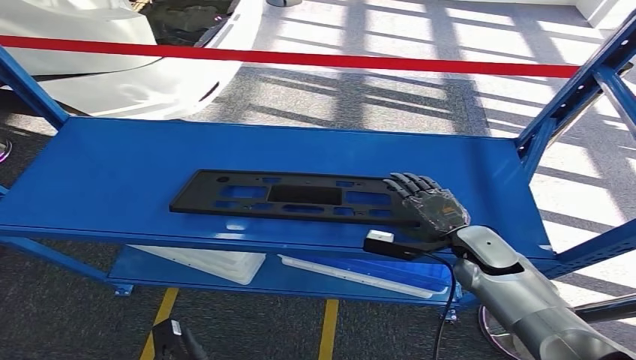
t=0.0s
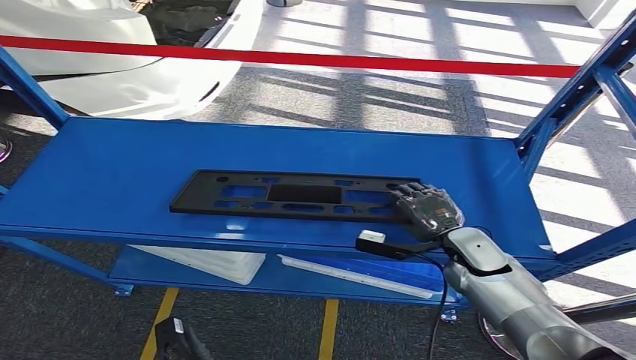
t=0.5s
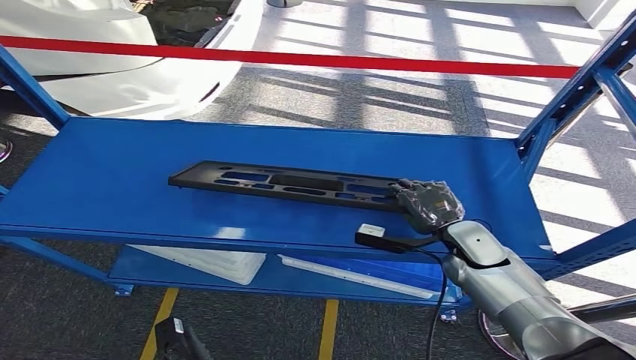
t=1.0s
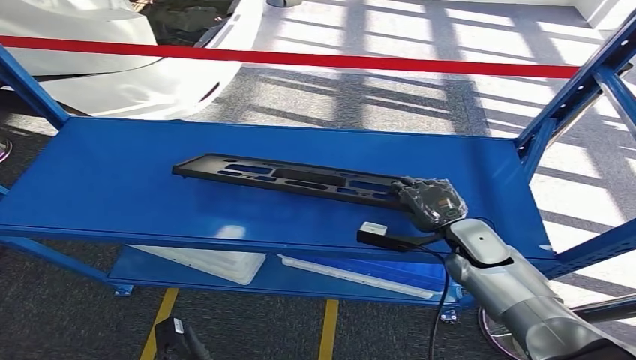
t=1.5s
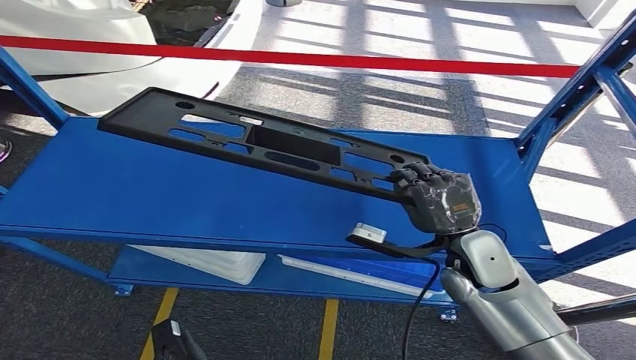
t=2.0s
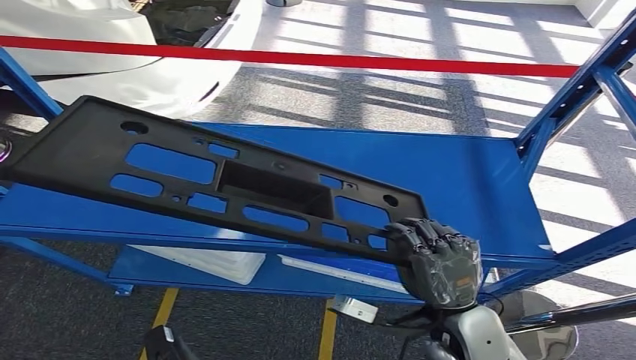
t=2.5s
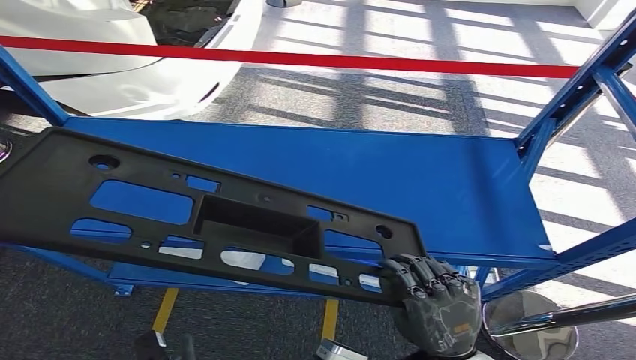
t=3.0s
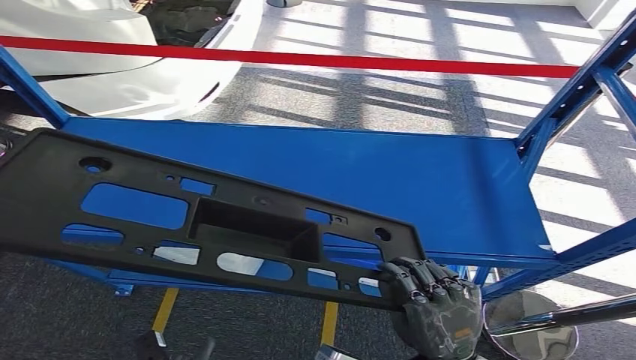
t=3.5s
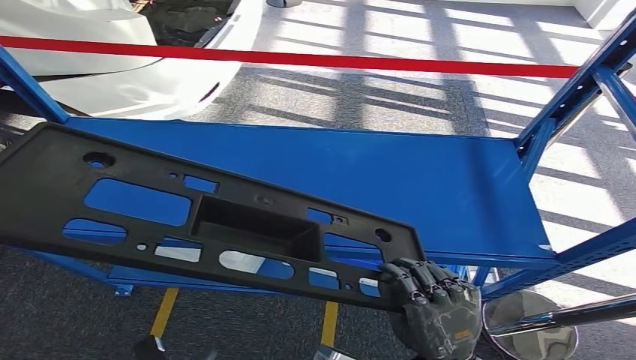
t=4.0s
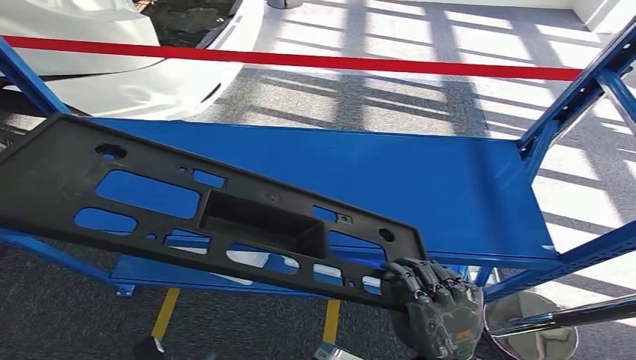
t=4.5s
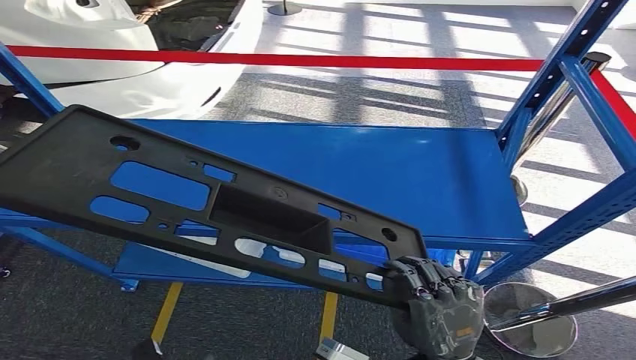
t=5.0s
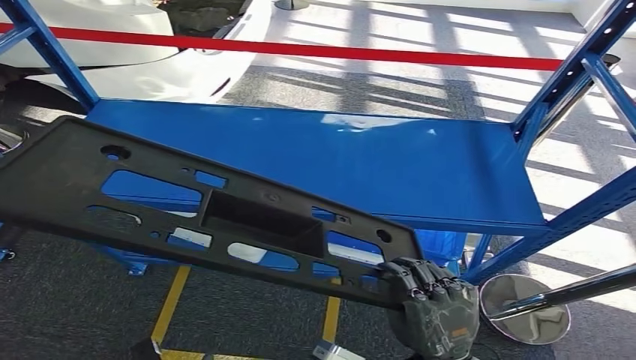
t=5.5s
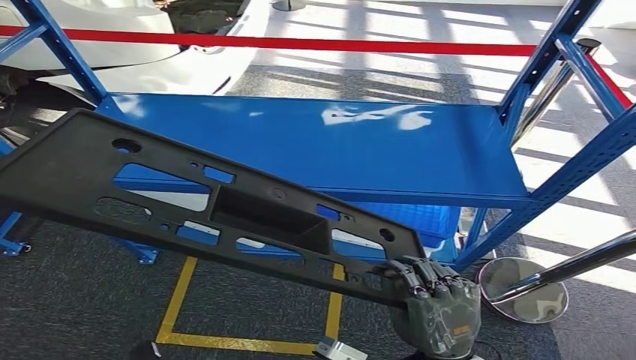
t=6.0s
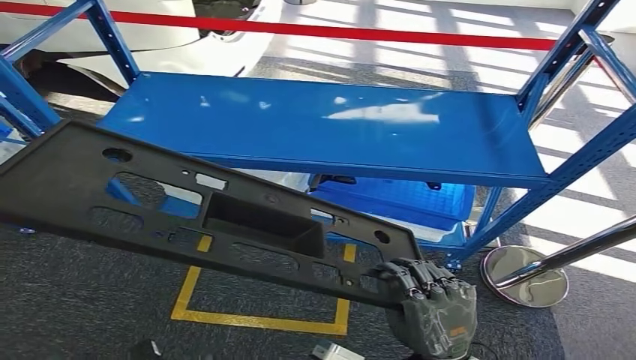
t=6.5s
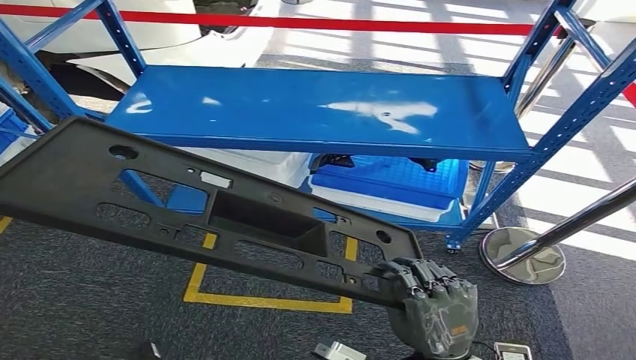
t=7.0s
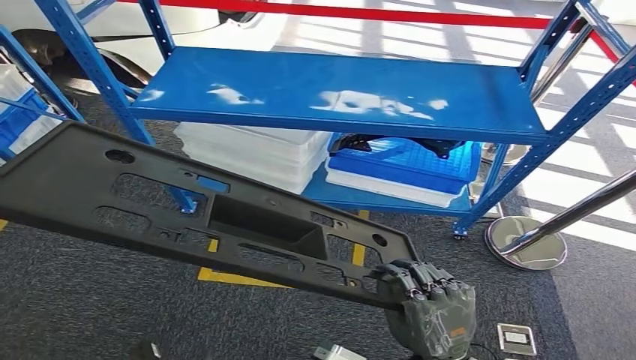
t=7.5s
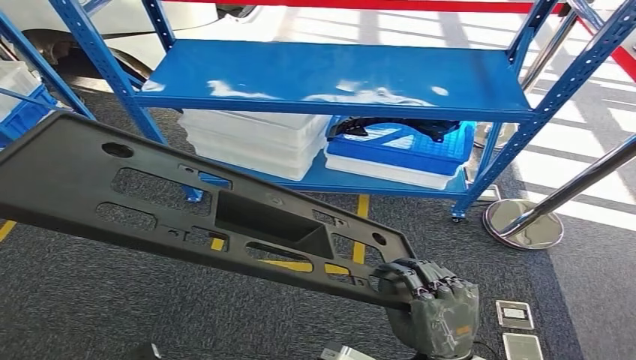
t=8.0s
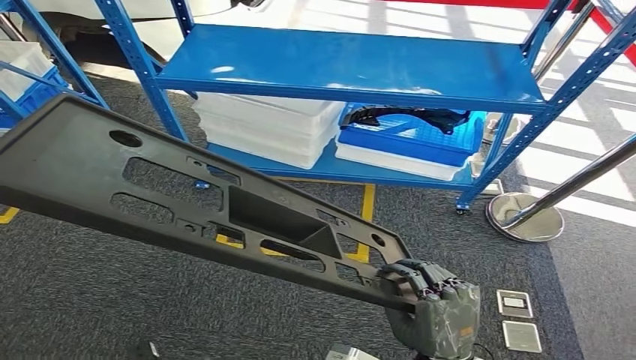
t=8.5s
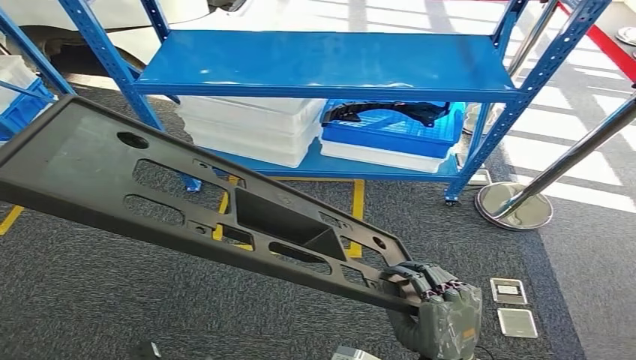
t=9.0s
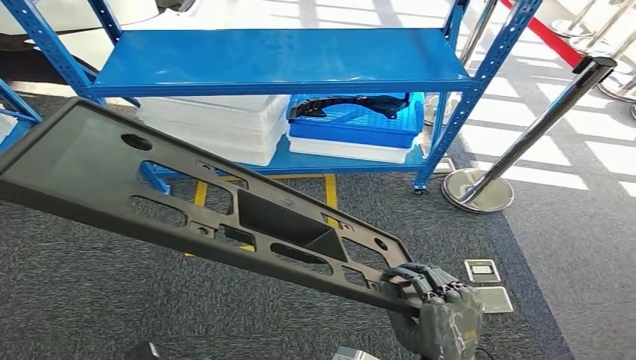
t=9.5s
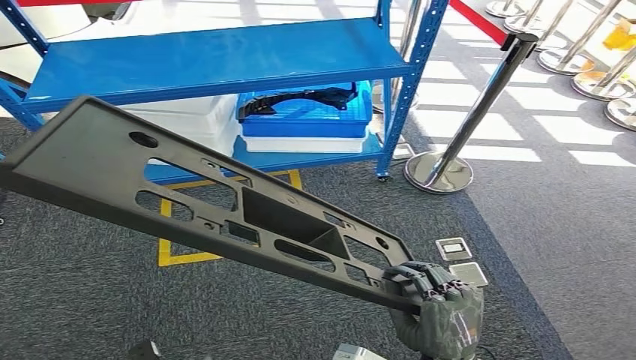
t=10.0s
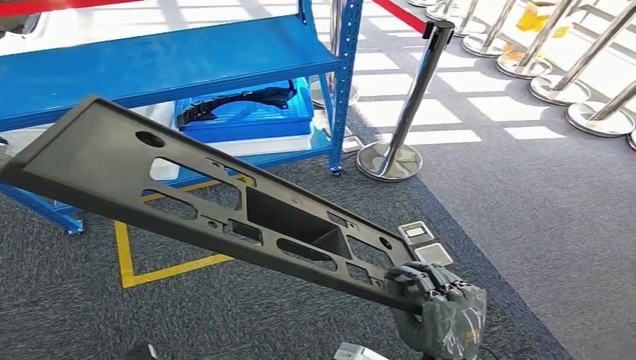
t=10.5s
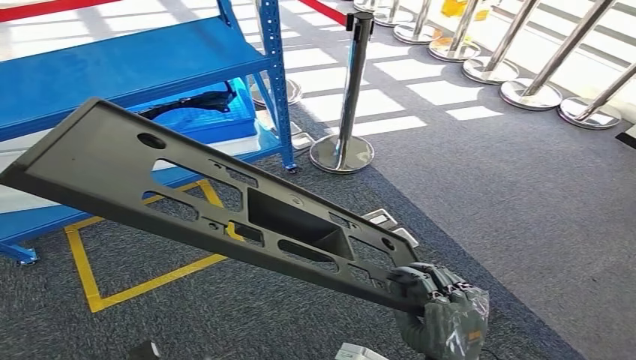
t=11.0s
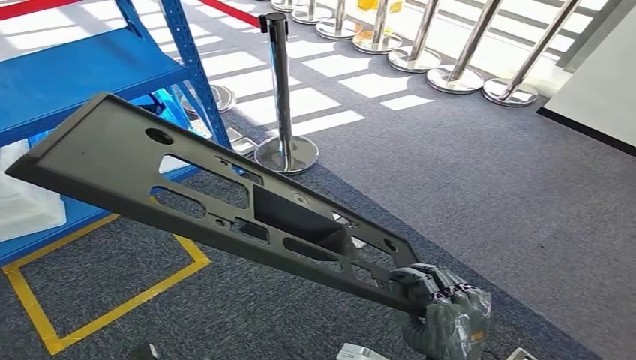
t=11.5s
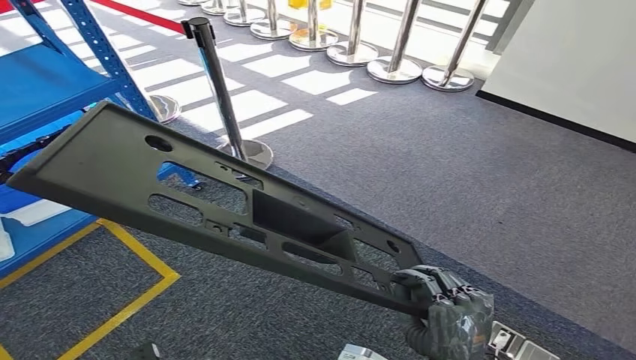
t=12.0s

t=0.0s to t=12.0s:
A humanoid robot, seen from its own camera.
Step, t=0.0s to t=2.0s: Pick up the large material from the shelf.
t=0.0s to t=2.0s: The right hand moves upward, some 5 cm.

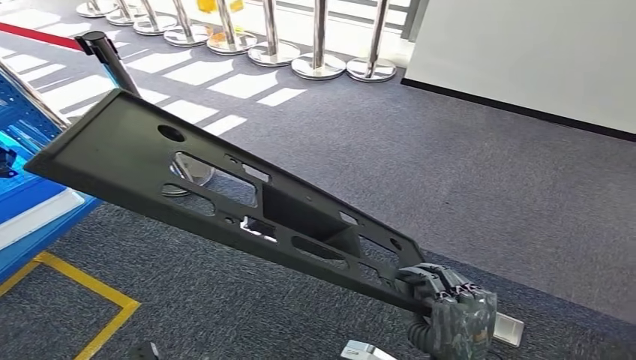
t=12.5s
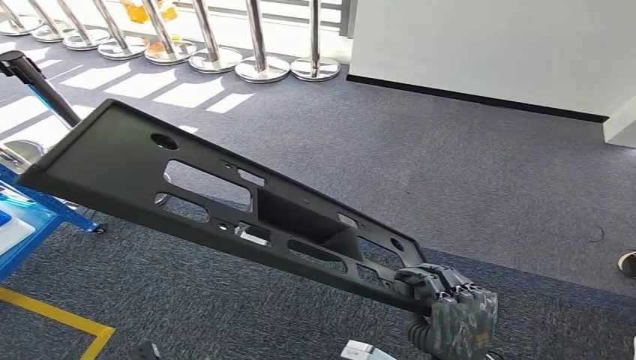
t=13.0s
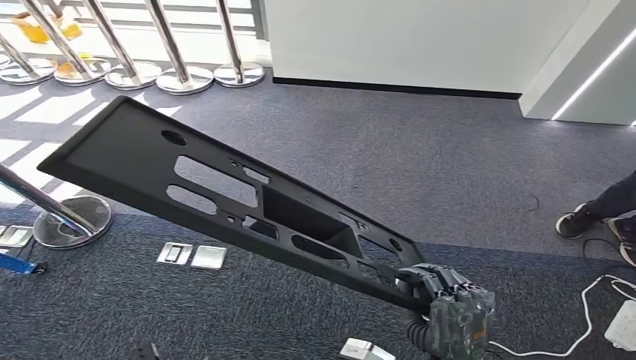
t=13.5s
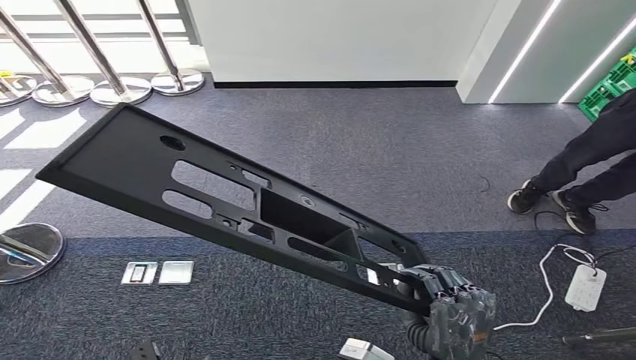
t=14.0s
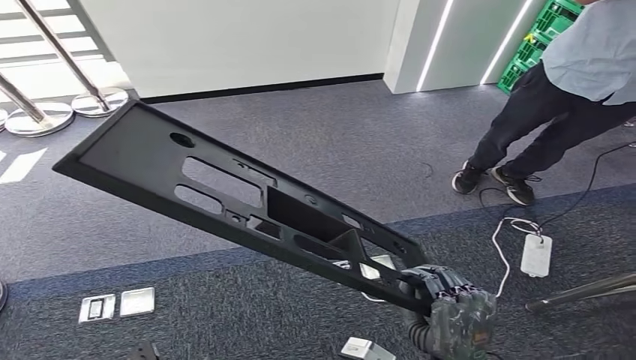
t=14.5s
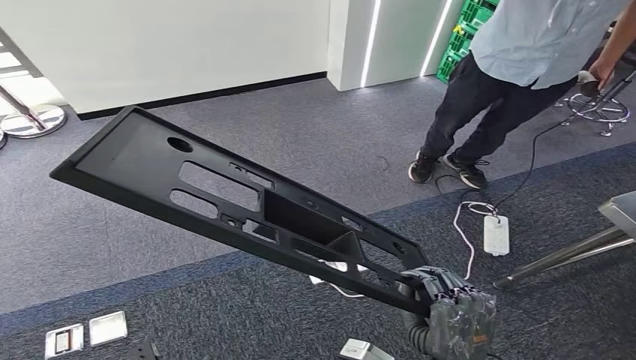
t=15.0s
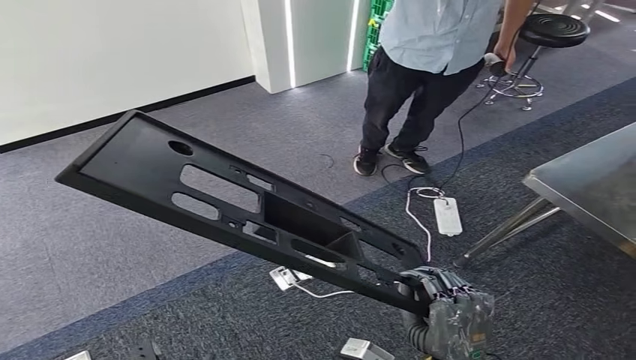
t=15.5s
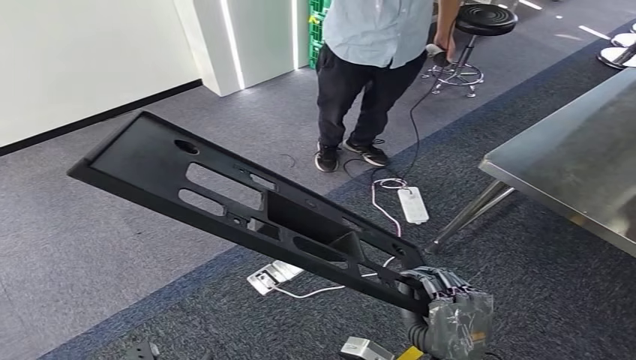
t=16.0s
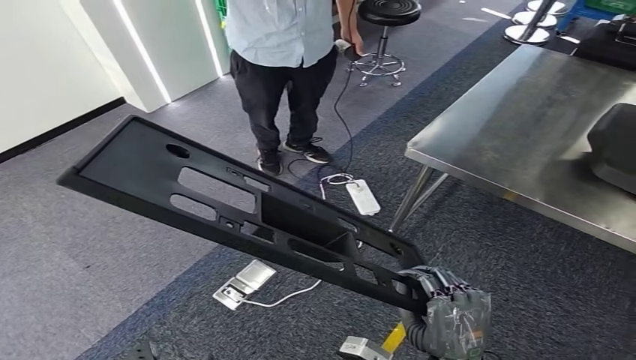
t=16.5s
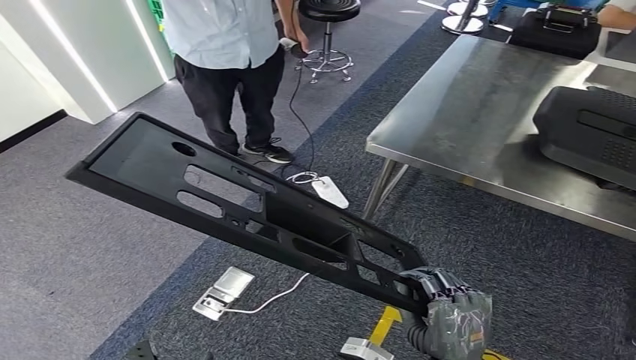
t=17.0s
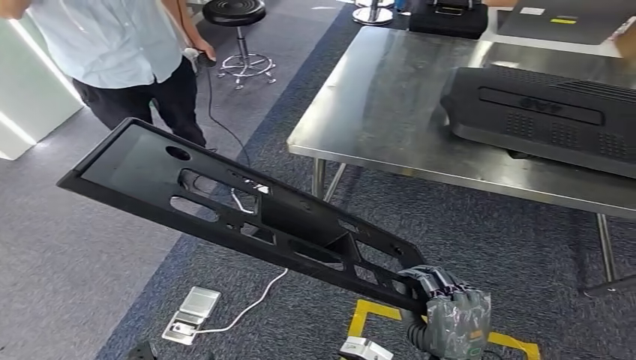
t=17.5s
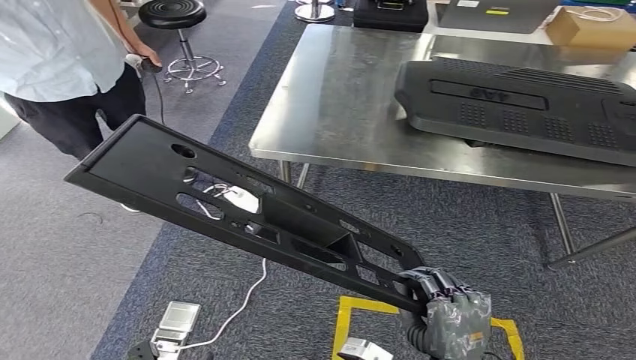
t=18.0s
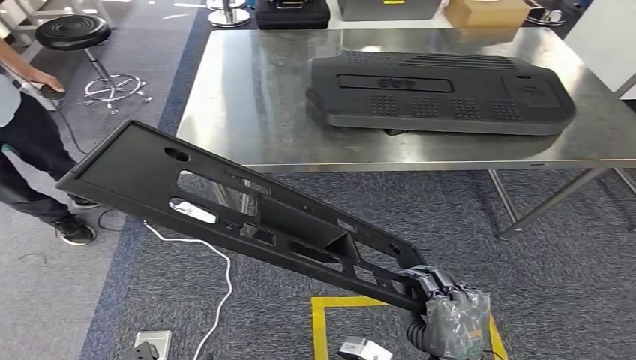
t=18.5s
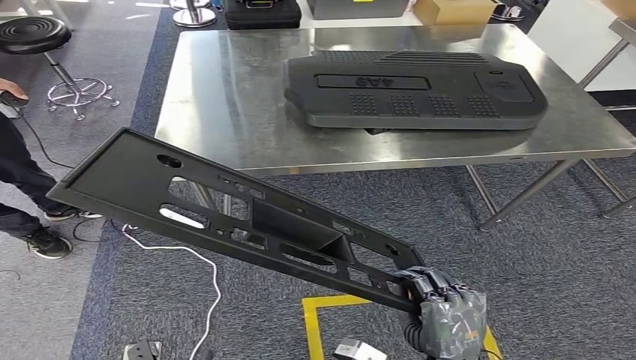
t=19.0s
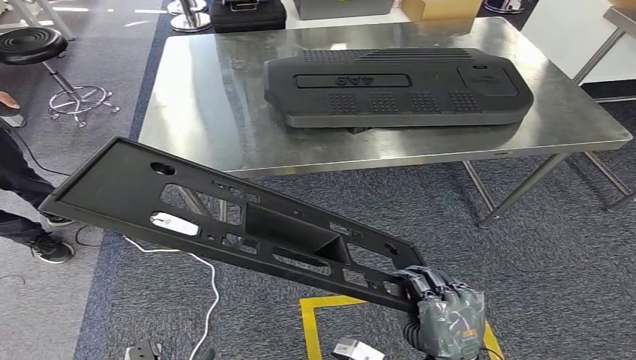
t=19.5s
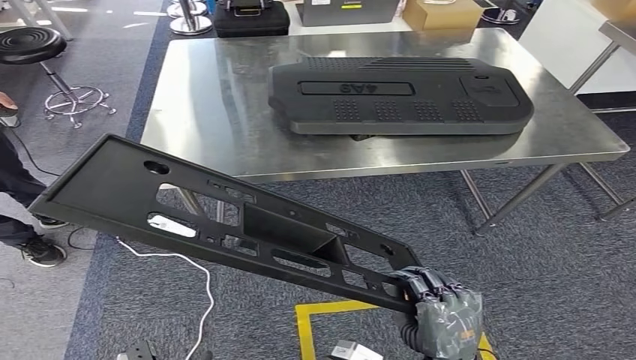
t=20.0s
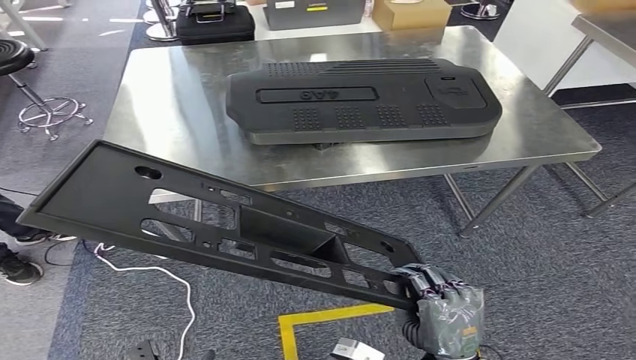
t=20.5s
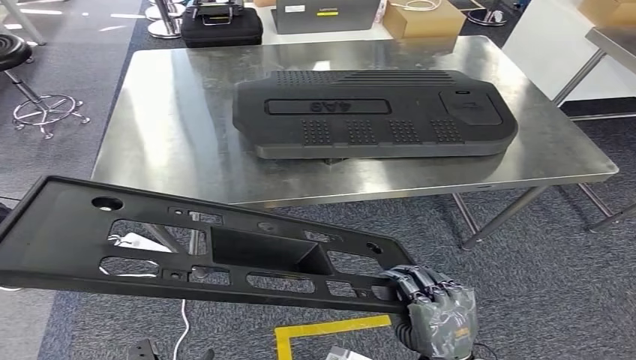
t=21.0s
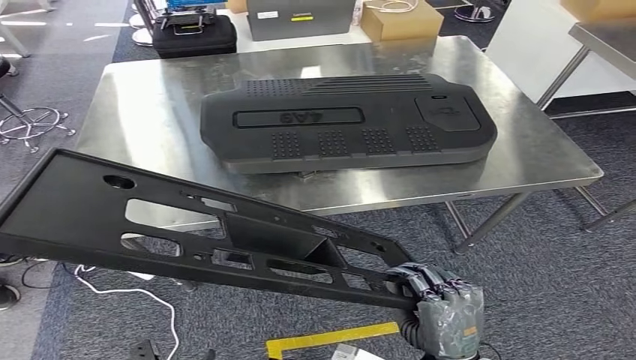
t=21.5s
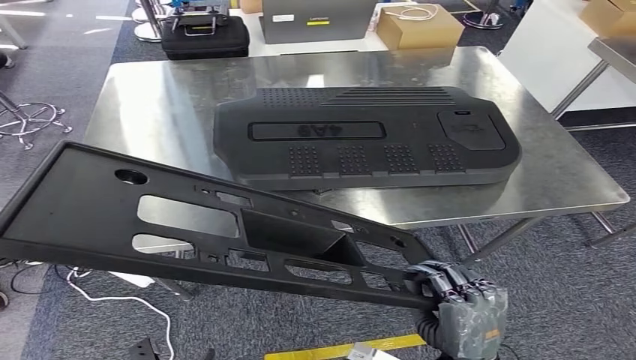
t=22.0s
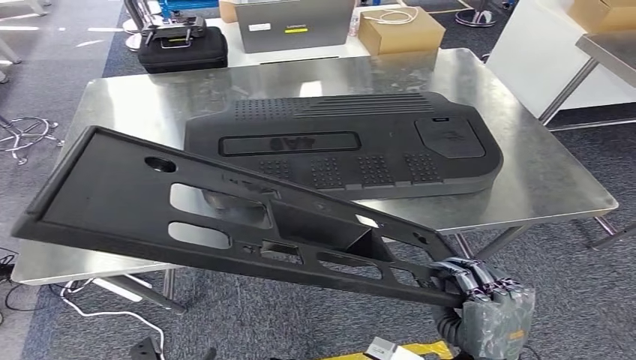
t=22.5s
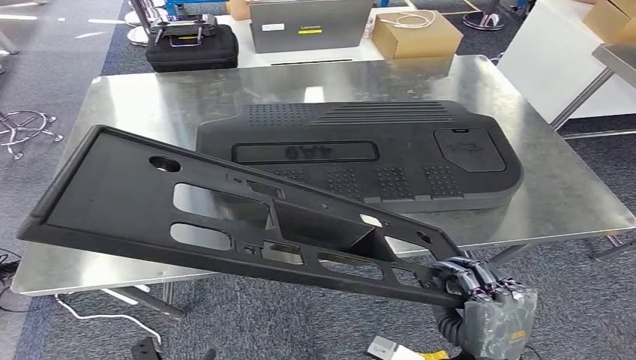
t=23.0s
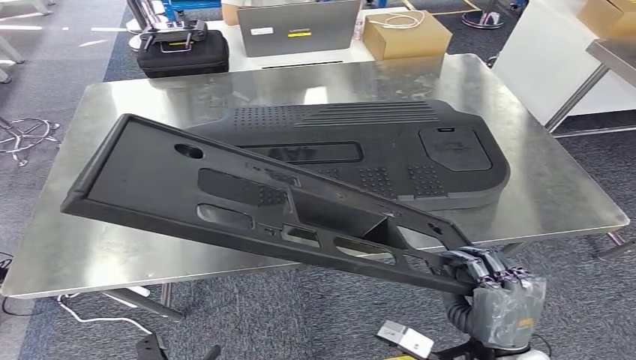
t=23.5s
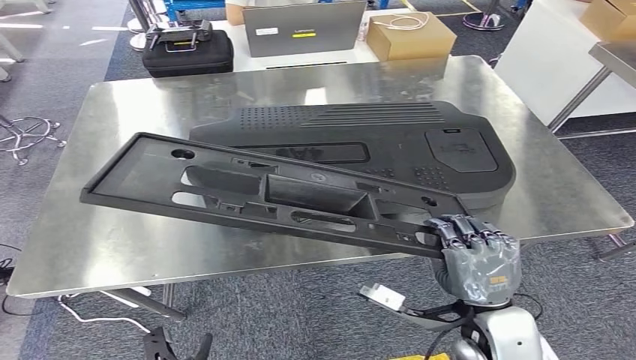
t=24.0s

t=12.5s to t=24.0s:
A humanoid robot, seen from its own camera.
Step, t=12.5s to t=22.5s: Move the large material to the workbench.
